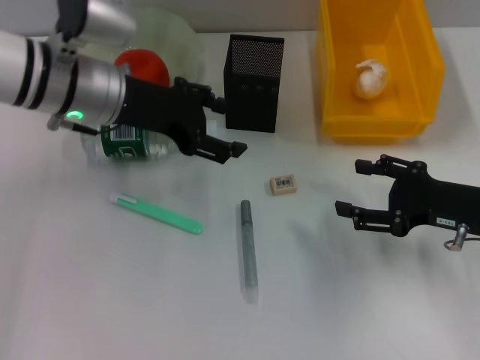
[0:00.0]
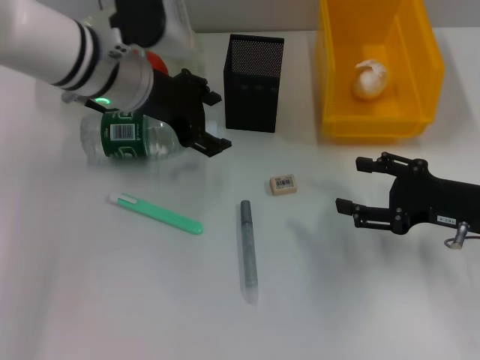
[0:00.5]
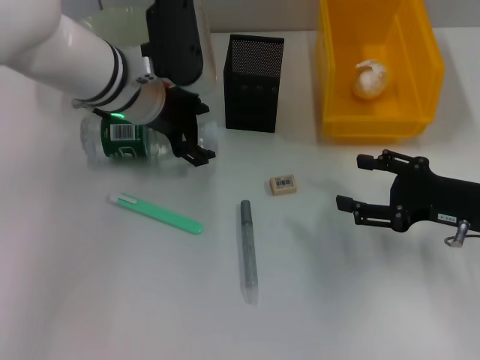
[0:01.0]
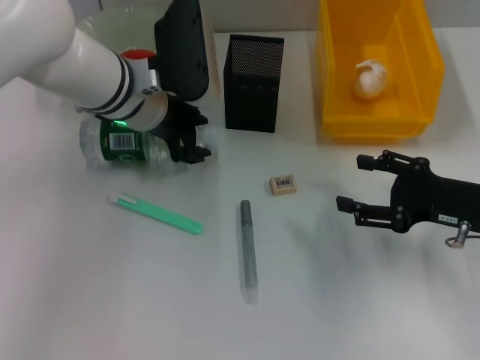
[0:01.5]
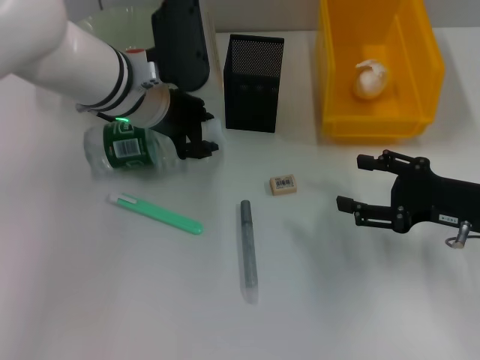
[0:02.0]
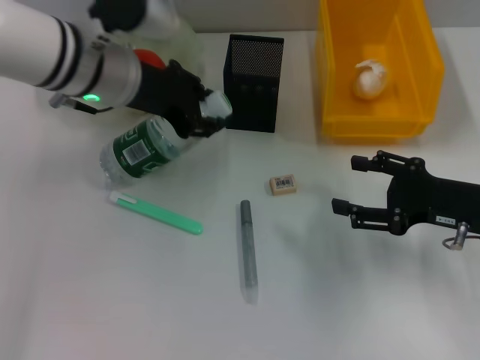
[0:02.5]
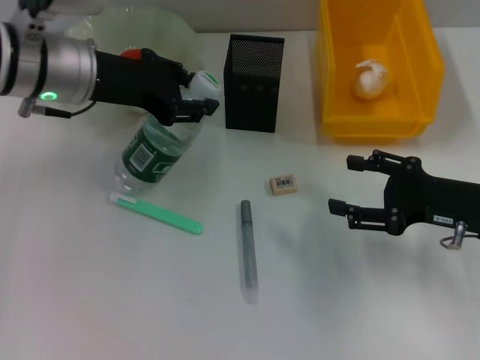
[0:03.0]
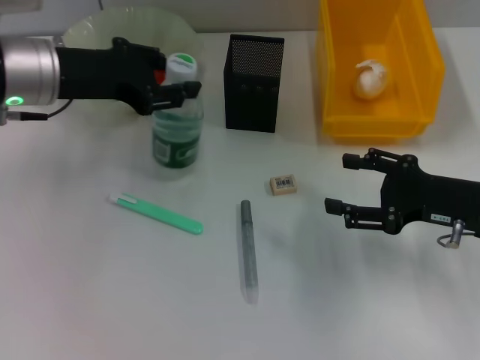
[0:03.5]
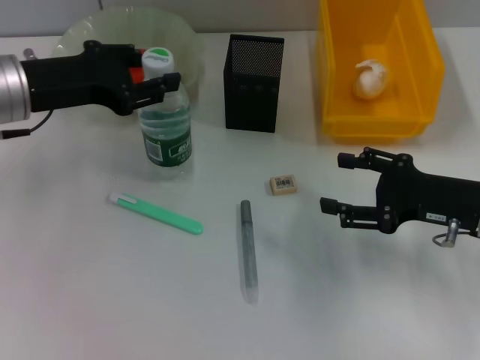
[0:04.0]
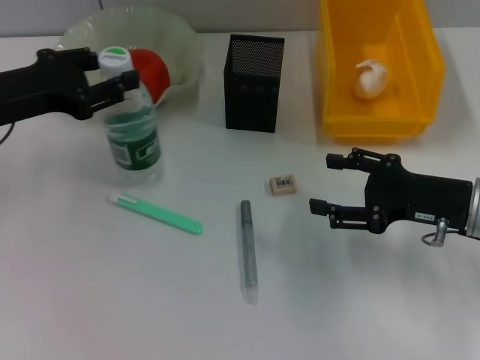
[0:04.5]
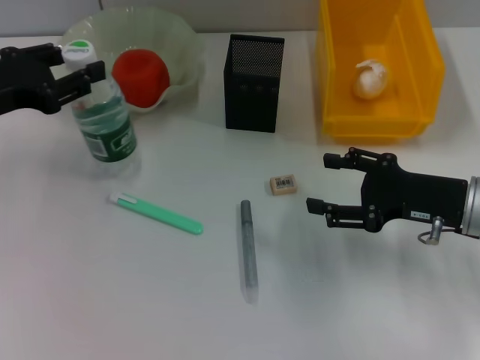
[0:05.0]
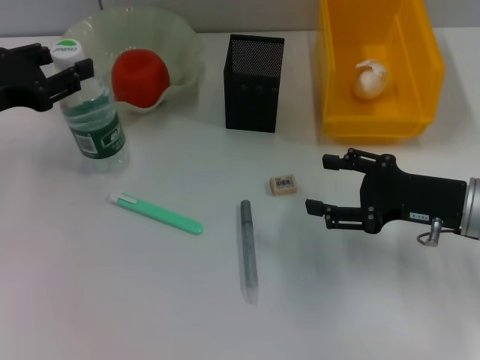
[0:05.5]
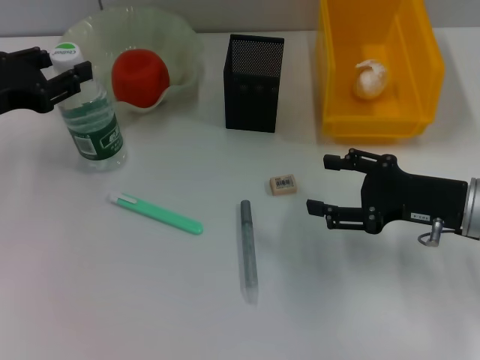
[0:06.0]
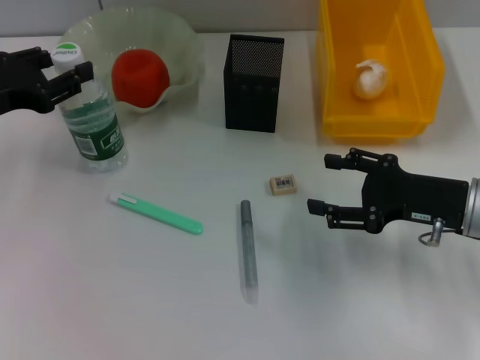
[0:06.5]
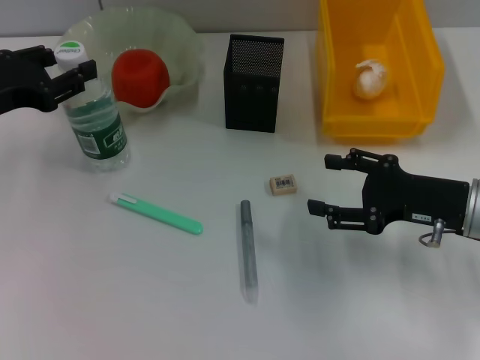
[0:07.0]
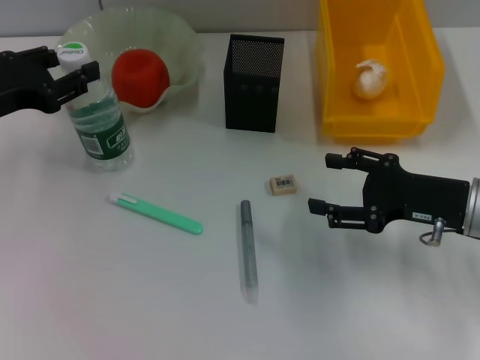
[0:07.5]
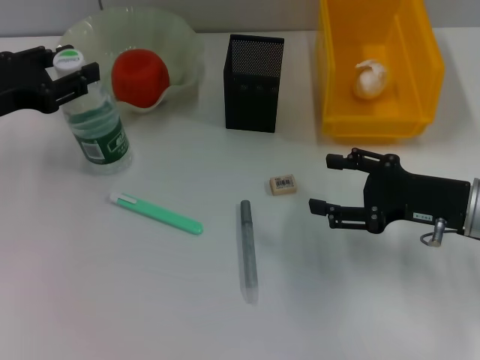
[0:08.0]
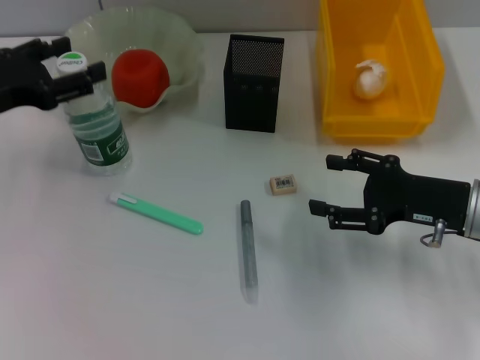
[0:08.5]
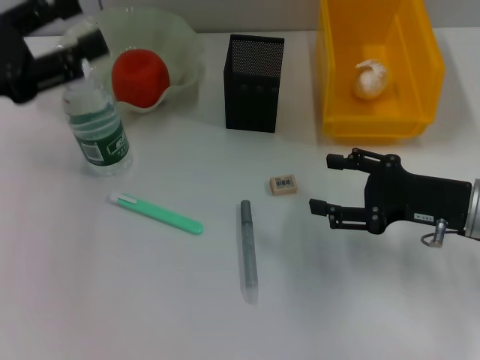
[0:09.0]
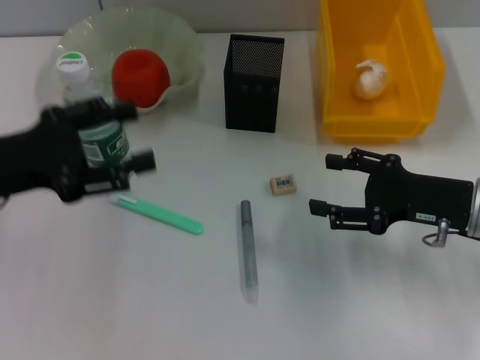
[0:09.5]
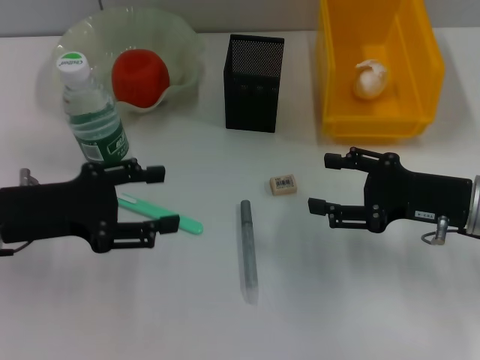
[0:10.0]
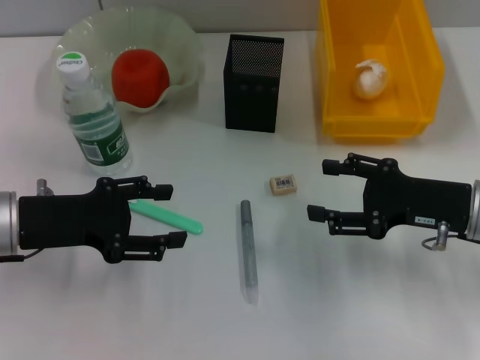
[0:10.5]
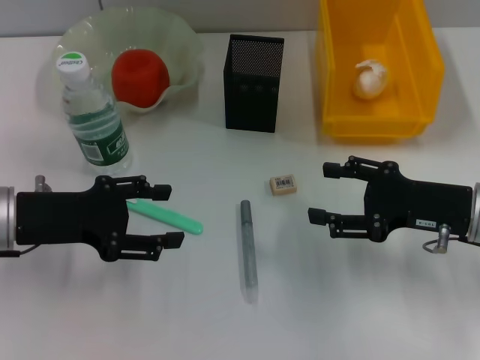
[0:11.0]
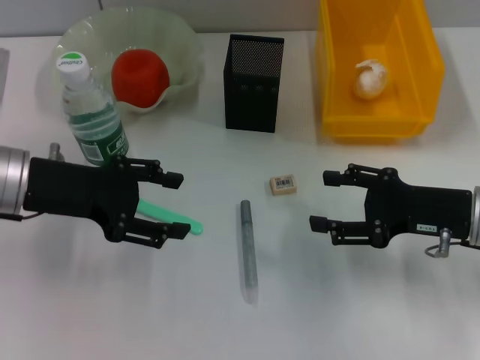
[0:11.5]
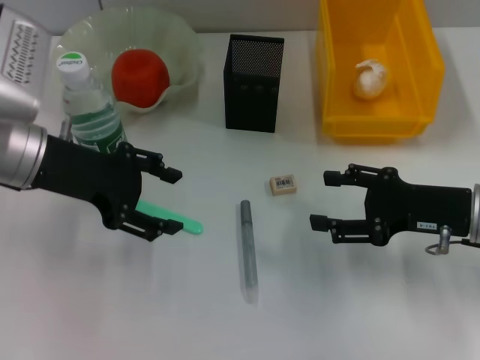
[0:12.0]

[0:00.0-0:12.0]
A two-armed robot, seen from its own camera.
Step, 0:00.0 to 0:01.5: Grab the water bottle with the left hand.
Step, 0:02.0 to 0:08.0: Place the water bottle on the table with the left hand.
0:00.0 to 0:02.0: The left gripper is displaced to the right by approximately 5 cm, and closes up.
0:02.0 to 0:04.0: The left gripper moves to the left, about 15 cm.
0:04.0 to 0:06.0: The left gripper shifts roughly 5 cm to the left.
0:06.0 to 0:08.0: The two grippers keep their place.
0:08.0 to 0:10.0: The left gripper shifts roughly 5 cm backward, and opens.
0:10.0 to 0:12.0: The left gripper heads forward, covering some 5 cm.

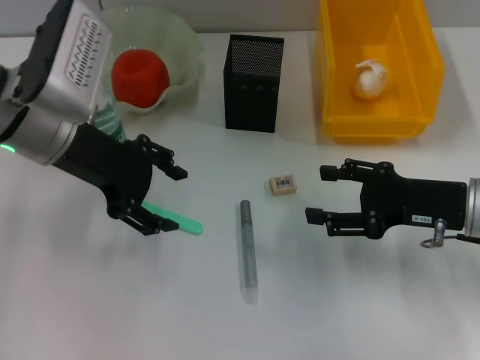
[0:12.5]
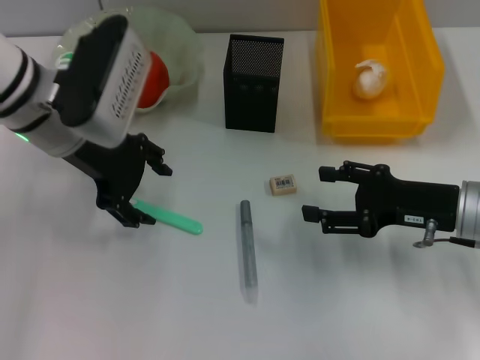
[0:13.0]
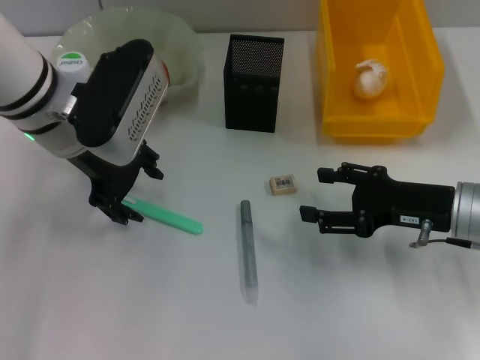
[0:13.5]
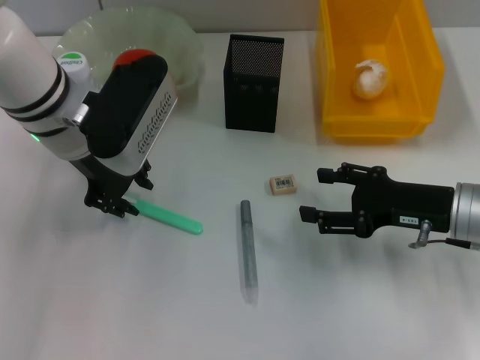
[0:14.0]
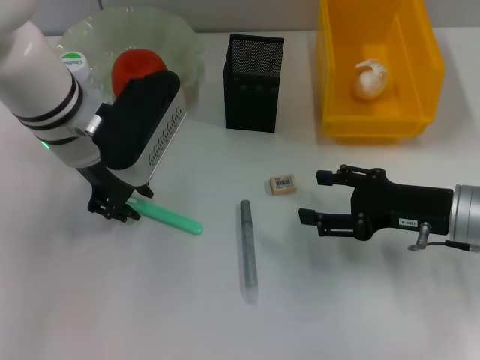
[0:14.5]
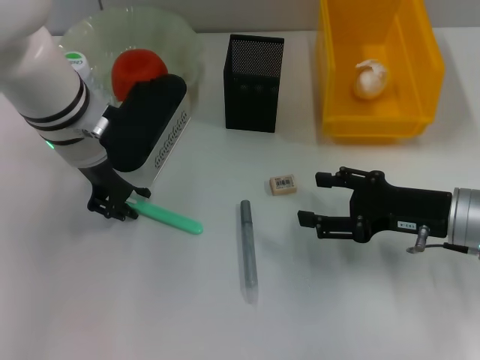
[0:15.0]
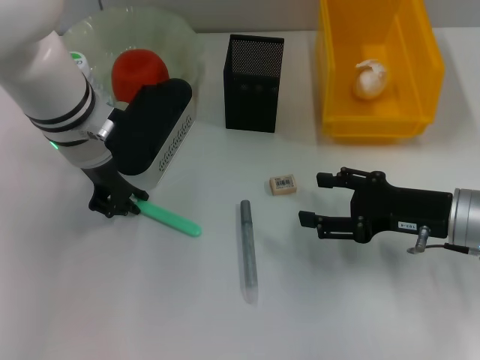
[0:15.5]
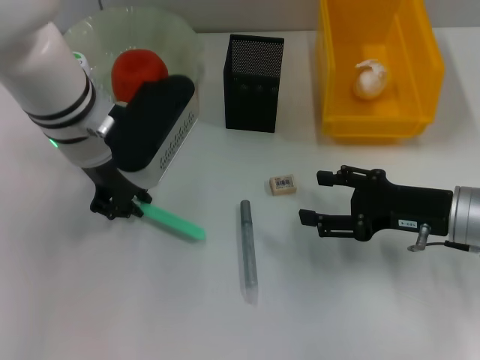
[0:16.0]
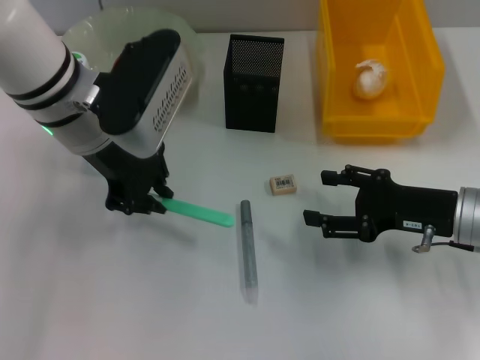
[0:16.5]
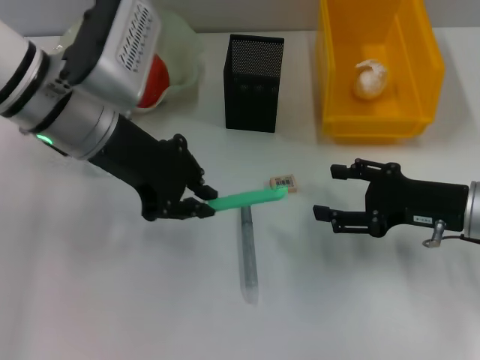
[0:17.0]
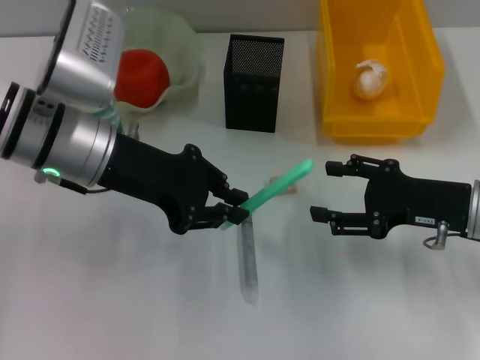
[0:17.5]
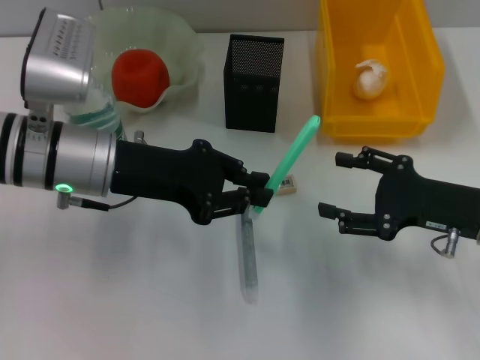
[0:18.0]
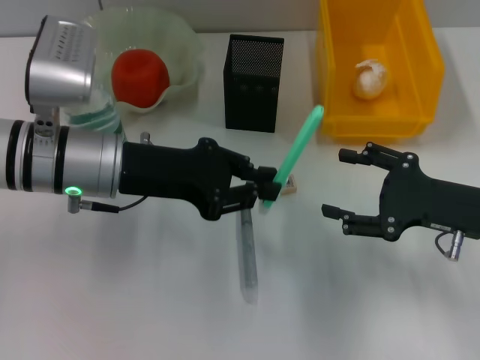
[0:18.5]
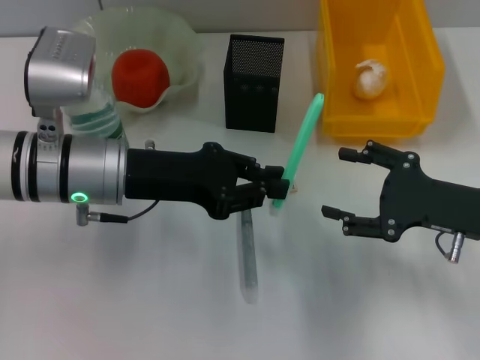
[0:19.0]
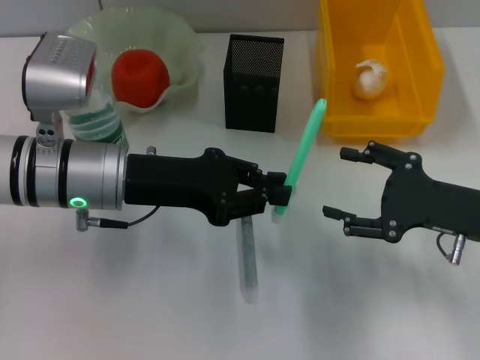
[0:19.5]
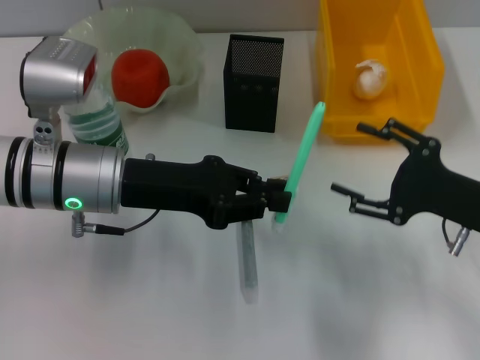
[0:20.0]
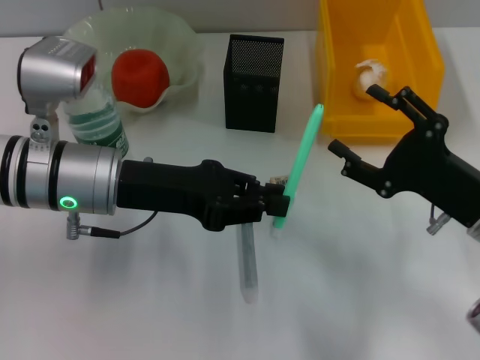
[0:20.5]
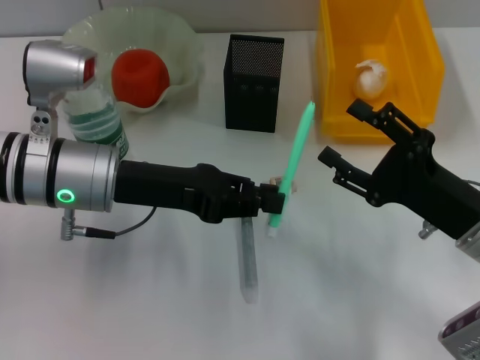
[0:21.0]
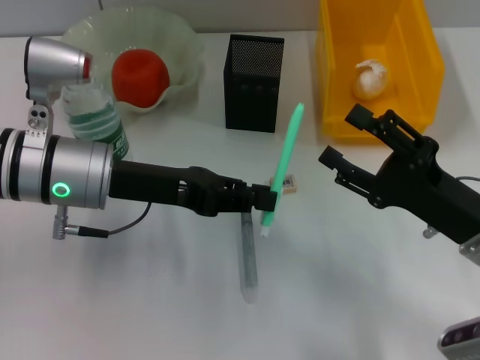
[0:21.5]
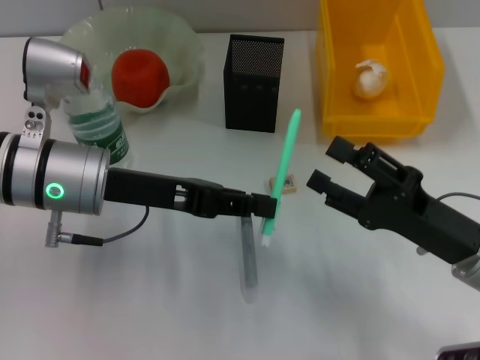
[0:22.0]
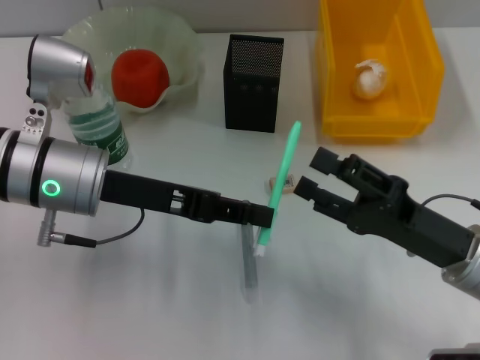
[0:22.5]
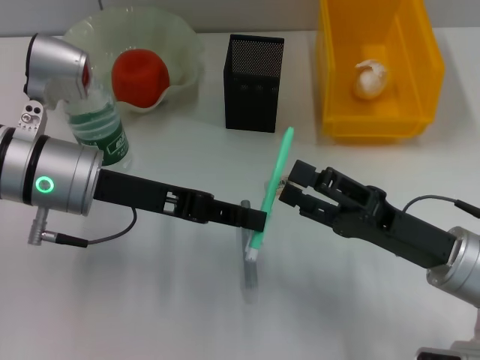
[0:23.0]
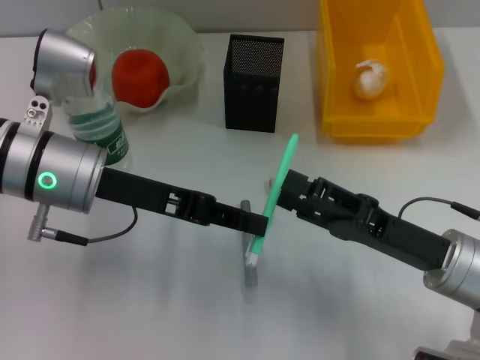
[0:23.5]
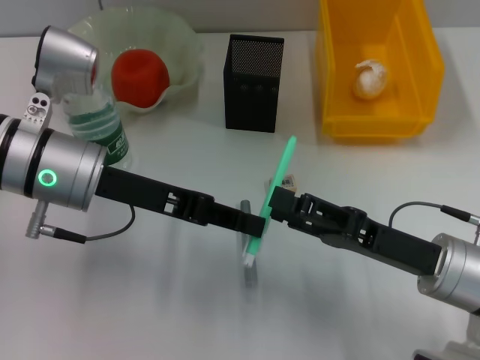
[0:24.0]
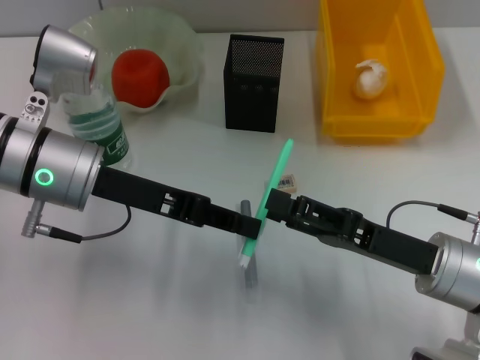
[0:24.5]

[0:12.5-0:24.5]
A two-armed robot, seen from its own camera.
Step, 0:12.5 to 0:15.5: Grab the blue utility knife with the left hand.
0:12.5 to 0:14.5: The left gripper closes up.
0:14.5 to 0:16.5: The grippers stay close to where they were, moving slightly.
0:16.5 to 0:18.5: The left gripper moves downward, about 5 cm.
0:22.5 to 0:24.5: The grippers make only small movements.

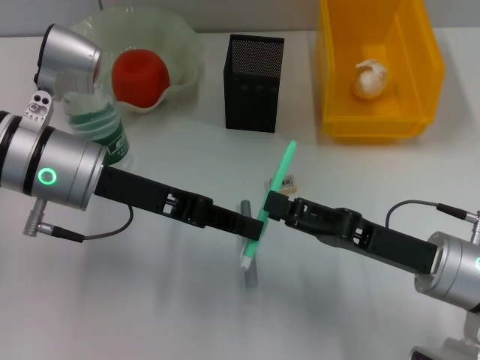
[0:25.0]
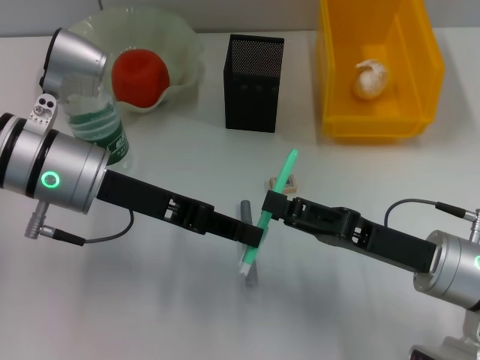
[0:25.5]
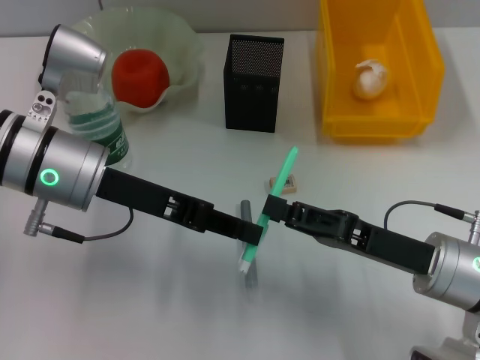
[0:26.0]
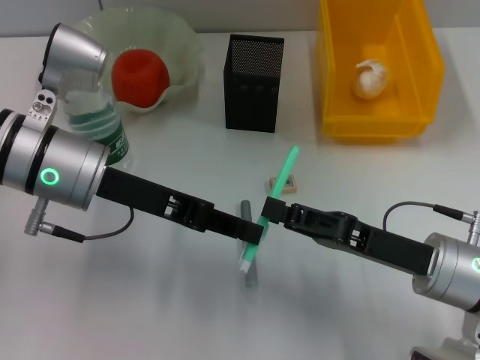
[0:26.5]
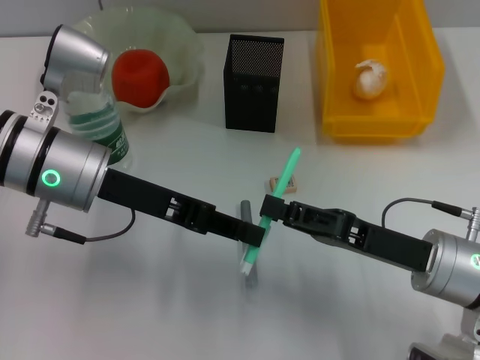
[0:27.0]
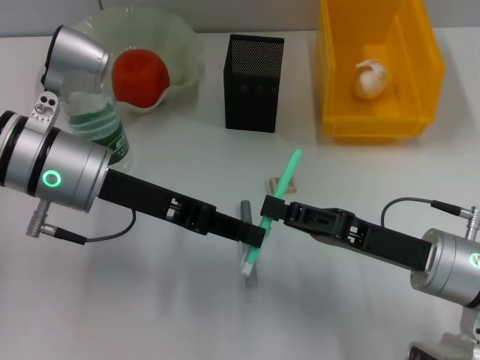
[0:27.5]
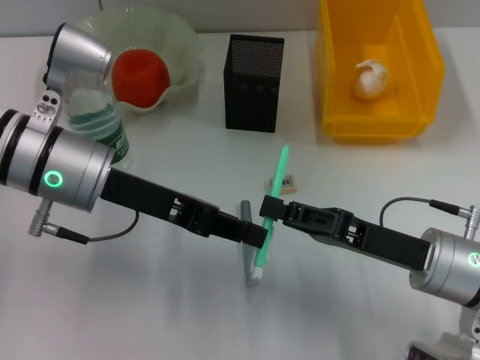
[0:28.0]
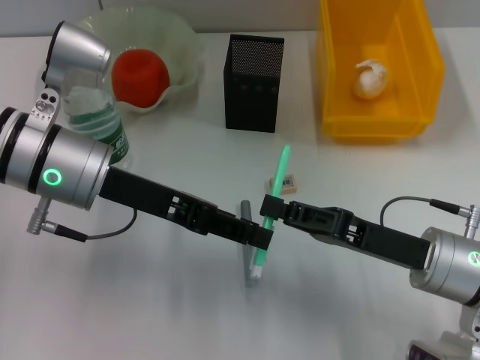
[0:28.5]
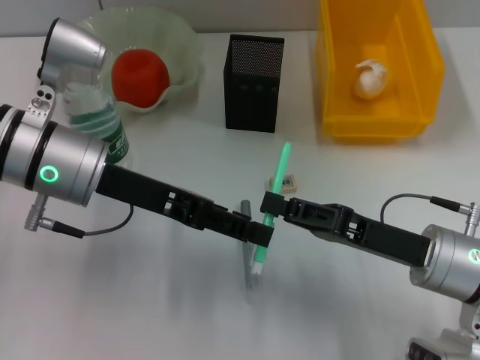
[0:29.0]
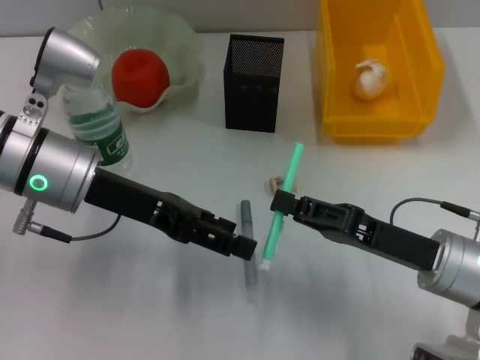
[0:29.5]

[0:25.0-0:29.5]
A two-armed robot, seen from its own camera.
Step, 0:25.0 to 0:29.0: Pass the blue utility knife from the left hand to the right hand.
0:25.0 to 0:27.0: The right gripper closes up.
0:27.0 to 0:29.5: The left gripper opens.
